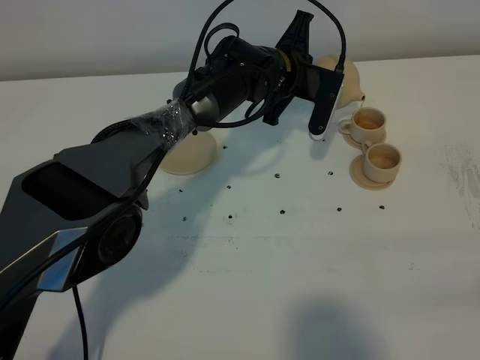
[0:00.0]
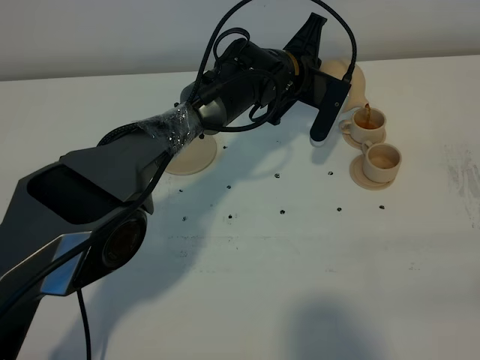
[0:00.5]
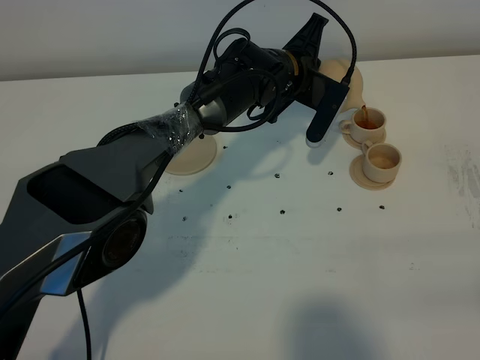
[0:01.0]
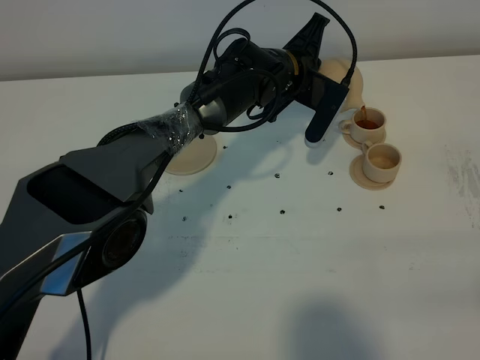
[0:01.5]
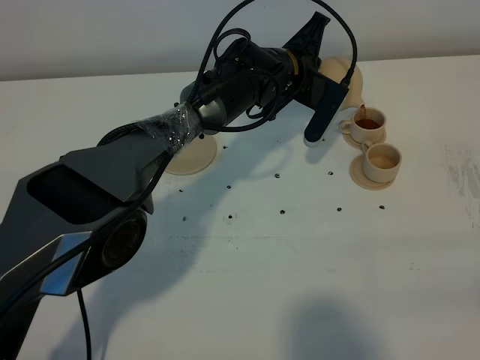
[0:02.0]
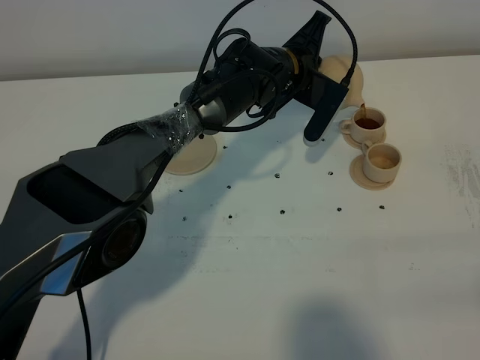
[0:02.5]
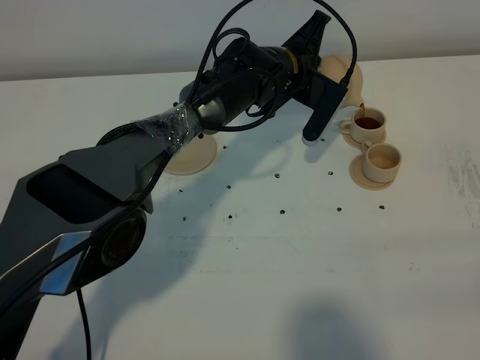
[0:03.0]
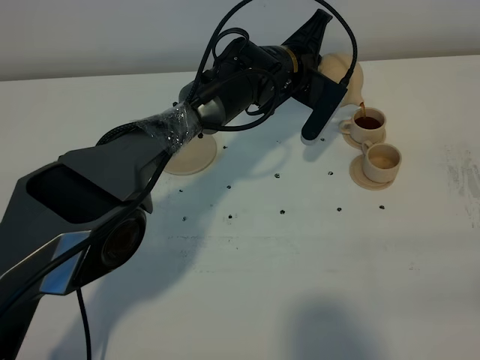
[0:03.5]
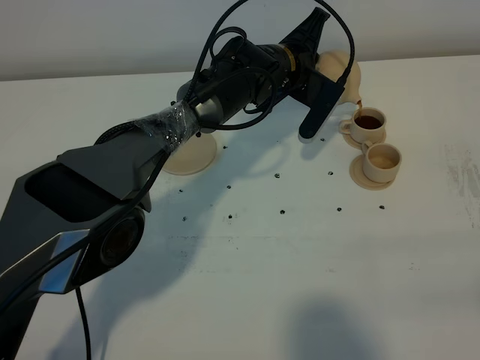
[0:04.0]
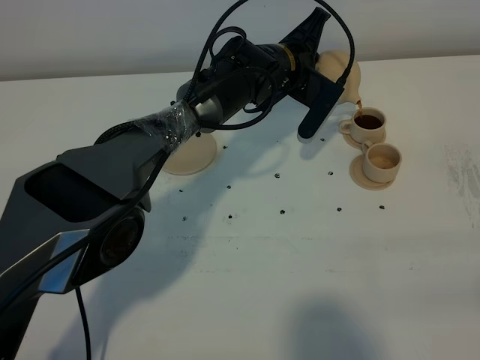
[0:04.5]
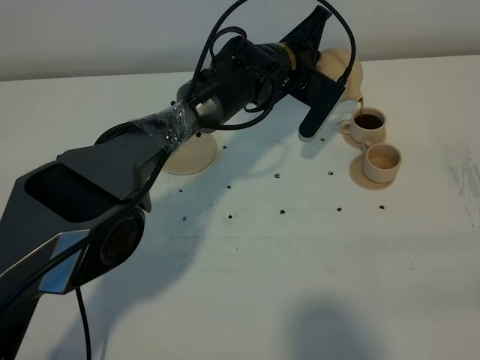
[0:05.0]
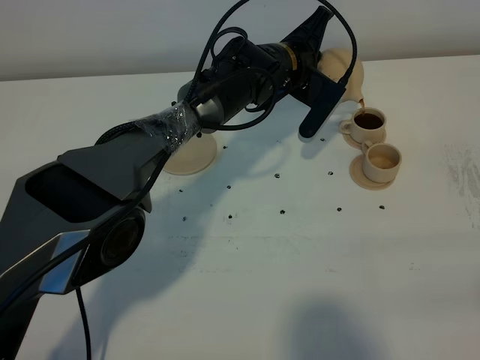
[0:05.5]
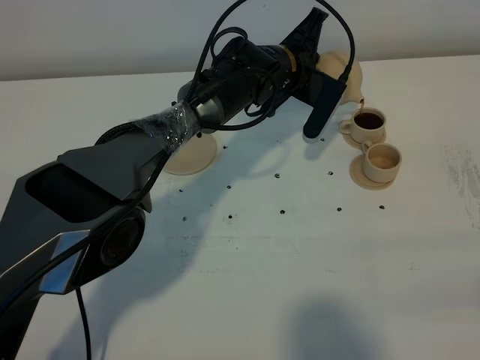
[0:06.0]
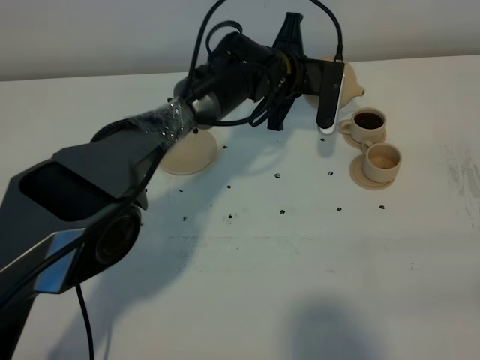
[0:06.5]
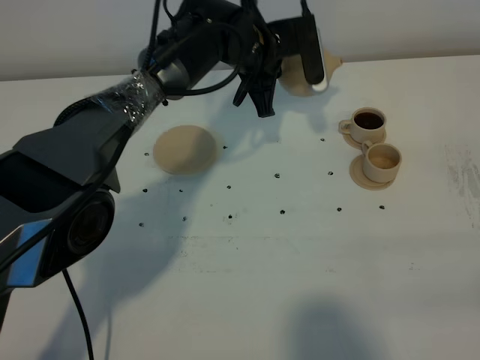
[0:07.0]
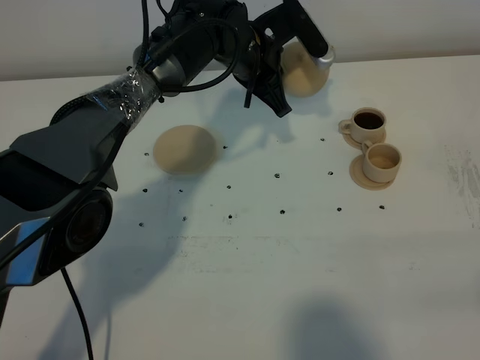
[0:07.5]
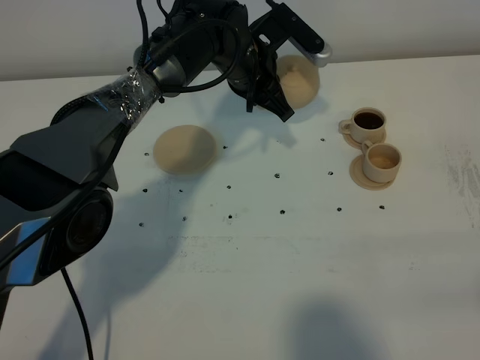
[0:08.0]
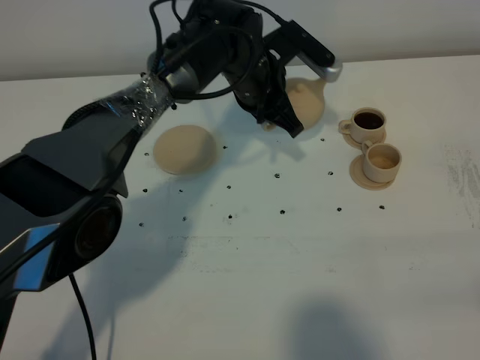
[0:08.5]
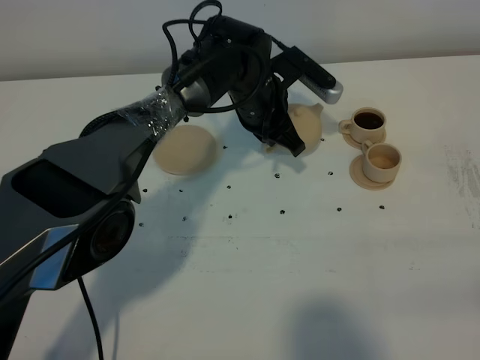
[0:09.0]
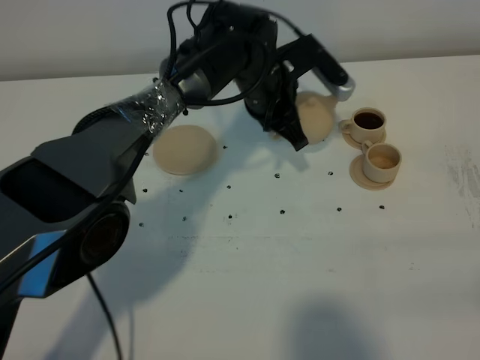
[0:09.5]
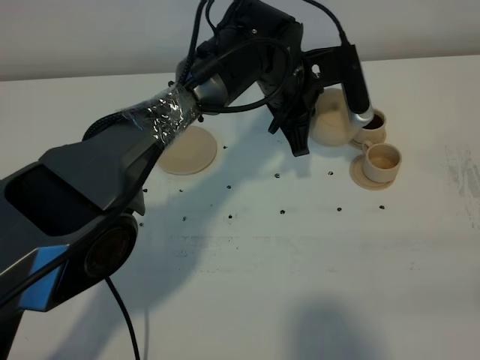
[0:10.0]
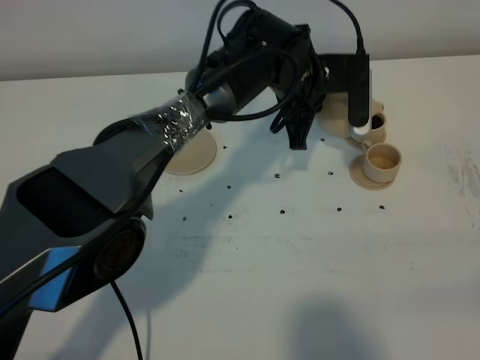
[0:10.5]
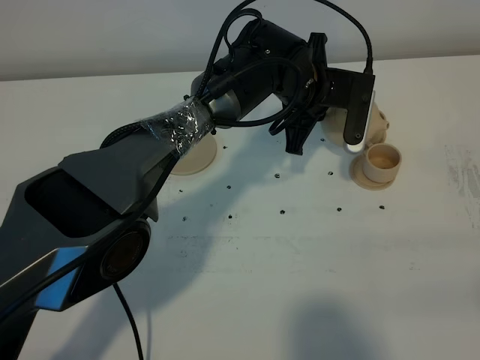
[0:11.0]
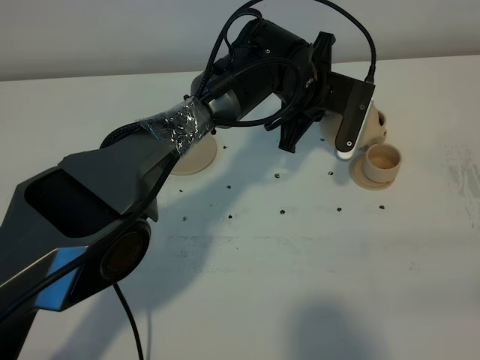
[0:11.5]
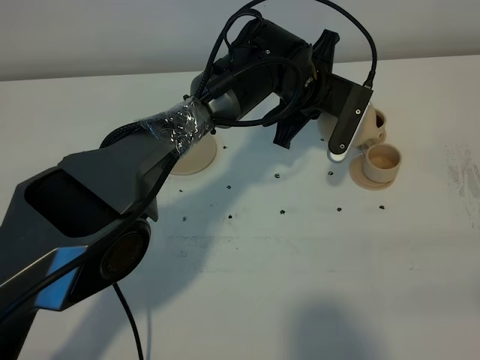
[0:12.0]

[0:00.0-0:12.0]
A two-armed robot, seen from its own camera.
Task of the whole recording: grasp the brown teapot and pour the tea into the two brown teacups one by one, put the brown teapot back in its original place.
Step, 0:00.0 to 0:06.0: Pour tea into the teacup with the left gripper.
0:00.0 to 0:02.0: The grippers stay close to where they were, moving slightly.
0:02.0 to 0:04.0: Both grippers stay put.
0:04.0 to 0:06.0: The grippers make only small movements.
0:06.0 to 0:08.0: The left gripper goes about 5 cm to the left.
0:08.0 to 0:10.0: The left gripper shifts some 5 cm to the right.

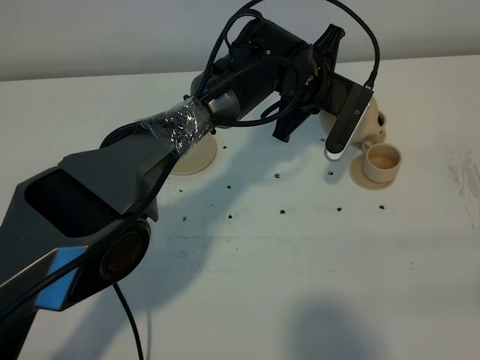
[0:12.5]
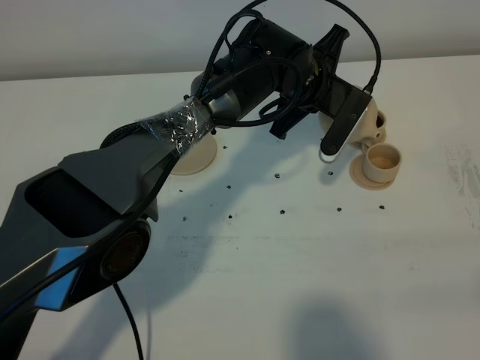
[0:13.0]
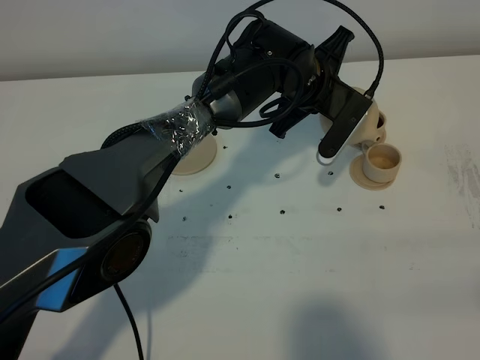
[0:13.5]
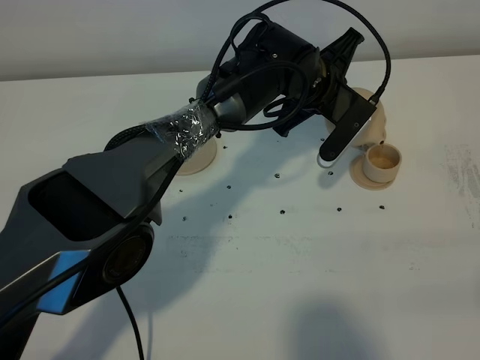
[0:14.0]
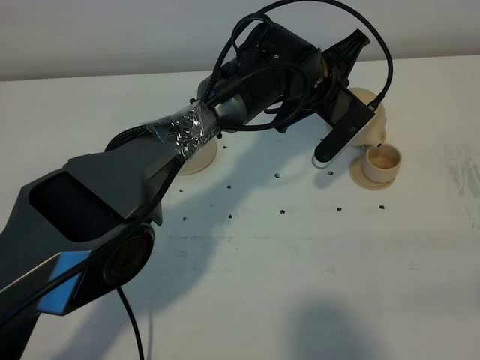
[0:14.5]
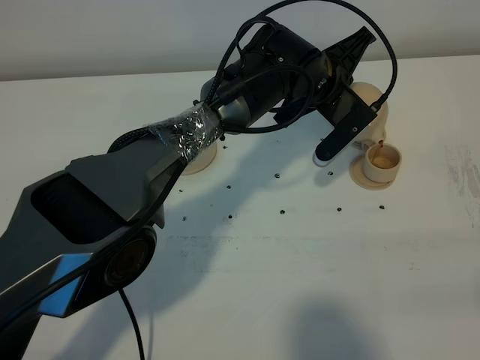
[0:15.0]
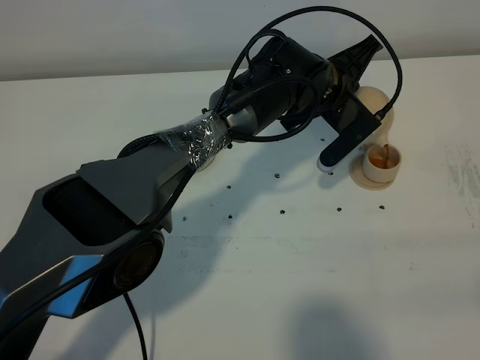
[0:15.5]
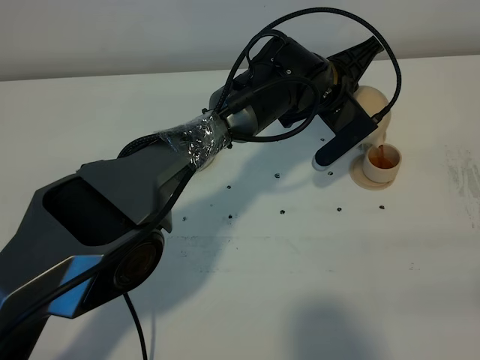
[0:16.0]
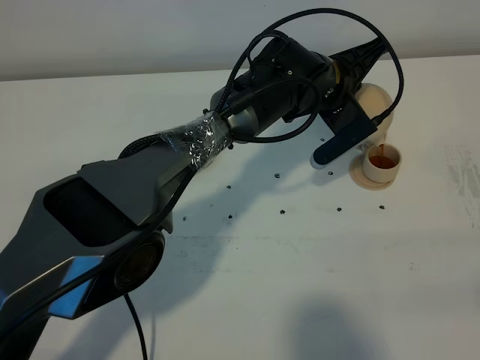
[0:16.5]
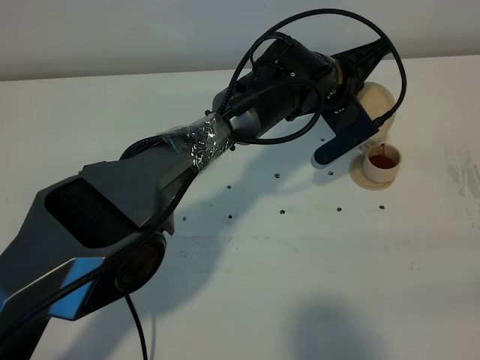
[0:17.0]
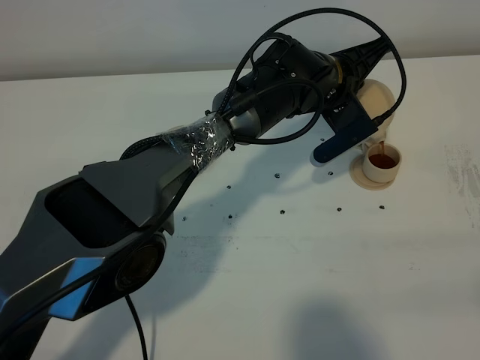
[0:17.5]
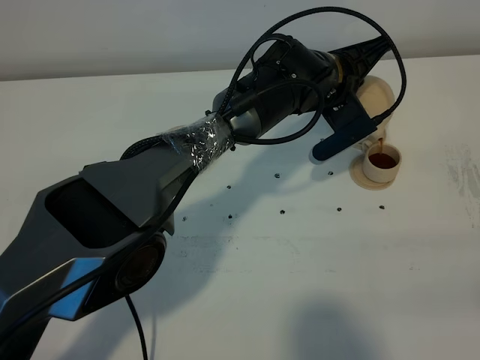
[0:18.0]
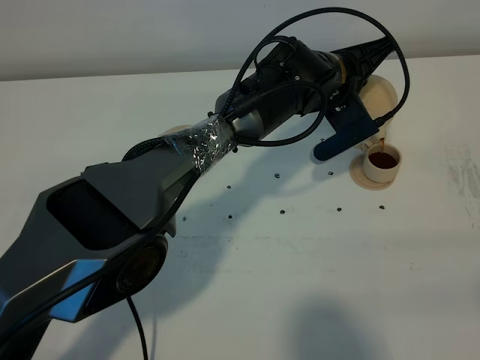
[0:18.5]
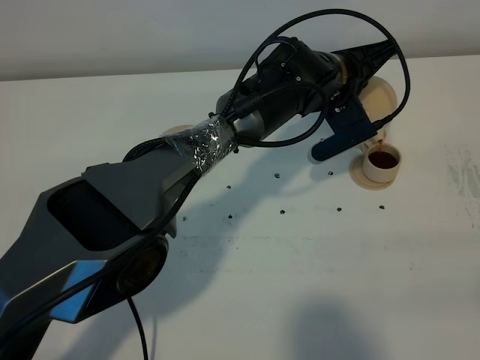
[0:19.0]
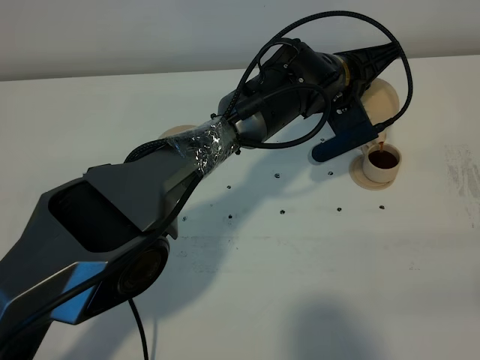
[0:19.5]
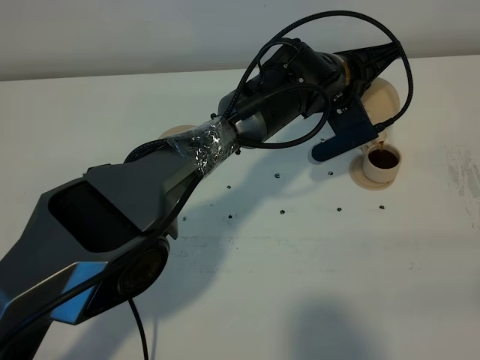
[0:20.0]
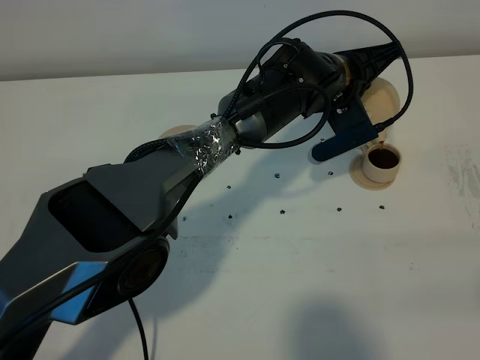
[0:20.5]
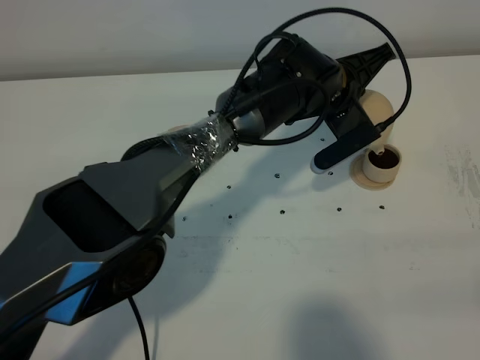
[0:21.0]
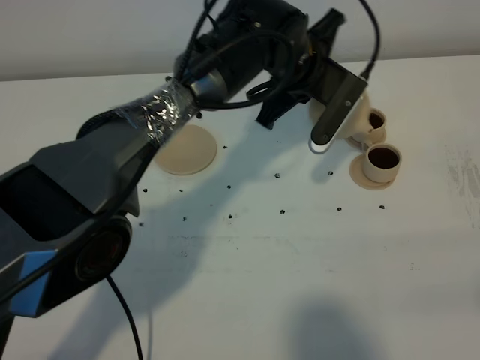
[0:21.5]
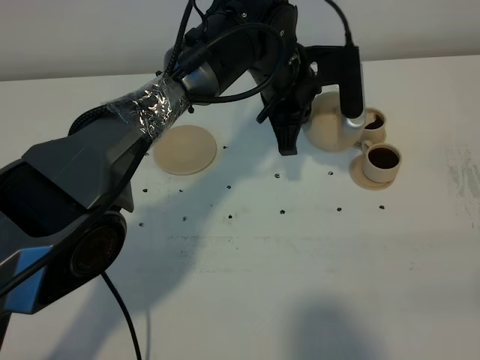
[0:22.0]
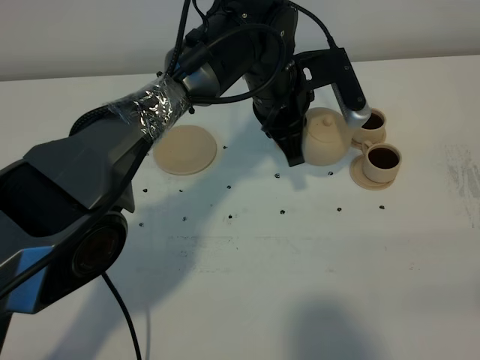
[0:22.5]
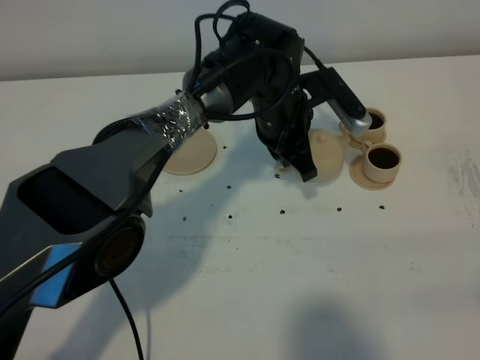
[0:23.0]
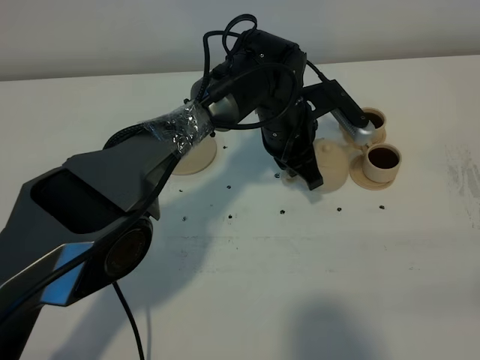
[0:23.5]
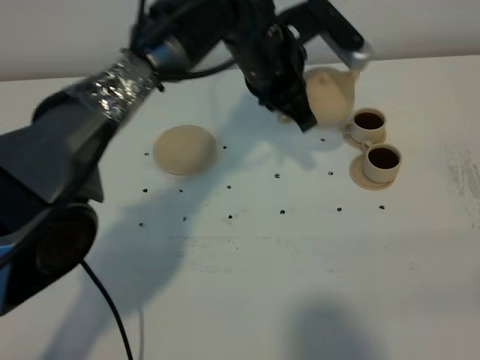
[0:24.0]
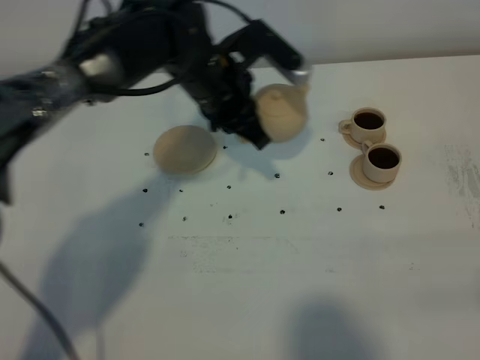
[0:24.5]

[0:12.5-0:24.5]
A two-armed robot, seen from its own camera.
Task of the whole recording: grasp the brown teapot and pour the tea into the two brown teacups one by one, put the brown teapot back in its original place.
Step, 0:12.5 to 0:21.0: Pour tea into the teacup with the left gripper.
0:12.5 to 0:14.5: The grippers stay close to where they were, moving slightly.
0:14.5 to 0:16.5: There are only small adjustments of the grippers.
0:16.5 to 0:18.5: The grippers make only small movements.
0:18.5 to 0:20.5: Both grippers stay put.
0:20.5 to 0:22.5: The left gripper heads to the left, covering about 5 cm.
0:22.5 to 0:24.5: The left gripper is displaced to the left by some 10 cm, and moves approximately 5 cm downward and comes back.

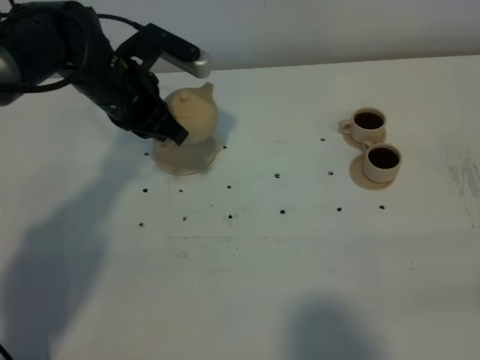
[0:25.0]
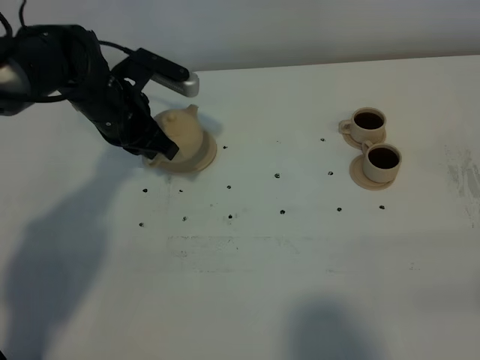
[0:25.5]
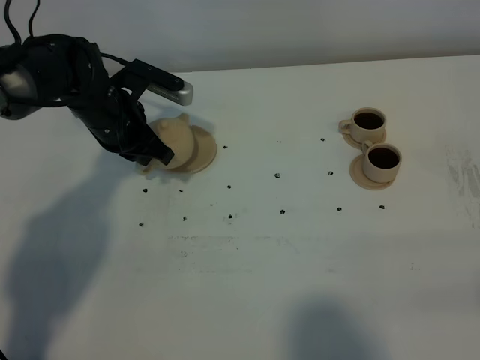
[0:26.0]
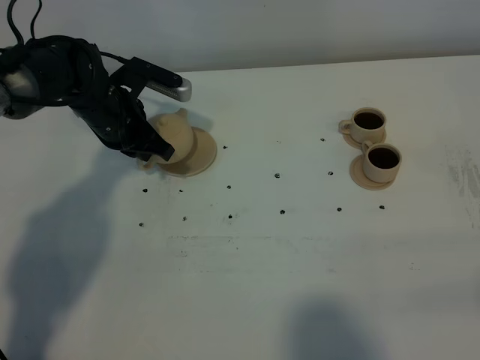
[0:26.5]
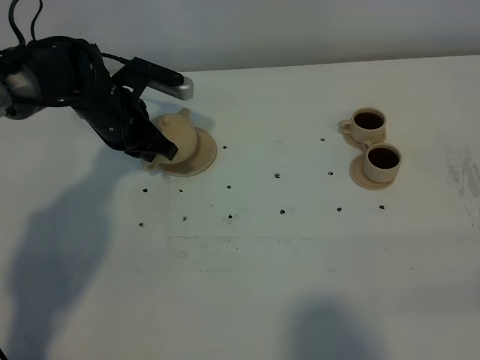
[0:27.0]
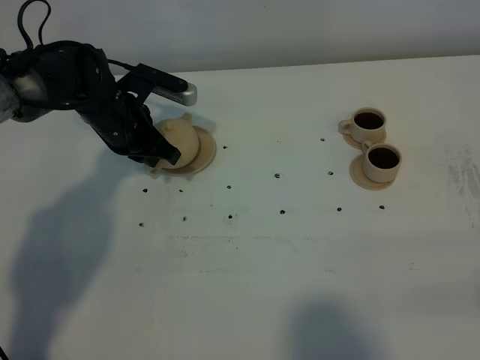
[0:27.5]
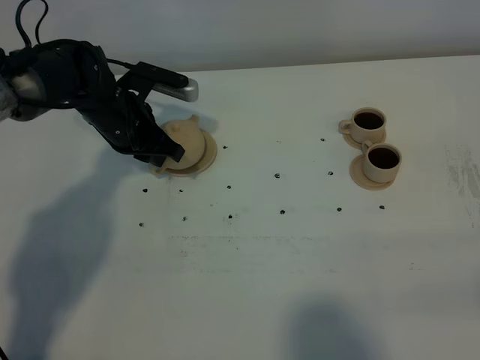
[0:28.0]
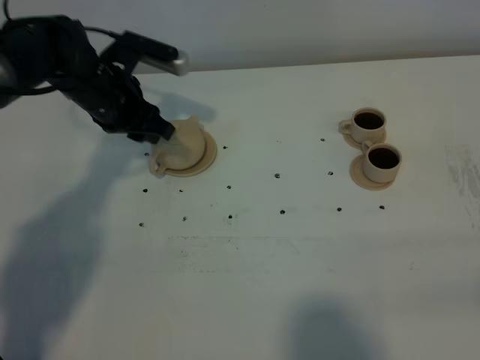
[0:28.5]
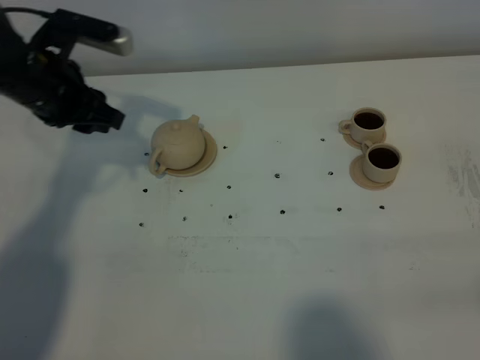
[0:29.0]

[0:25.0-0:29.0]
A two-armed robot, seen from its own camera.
Task of the whole recording: grasp the brown teapot and pour the tea into the two brown teacups one by one, put the brown teapot back in its original place.
0:25.0 to 0:27.0: The left gripper travels downward by some 5 cm.
0:27.0 to 0:29.0: The left gripper moves upward and to the left, approximately 10 cm, and opens its fingers.
